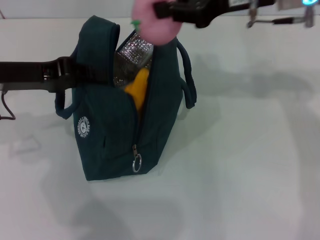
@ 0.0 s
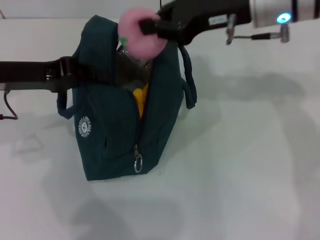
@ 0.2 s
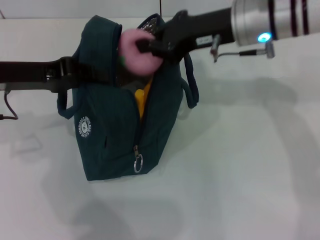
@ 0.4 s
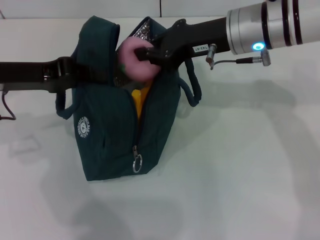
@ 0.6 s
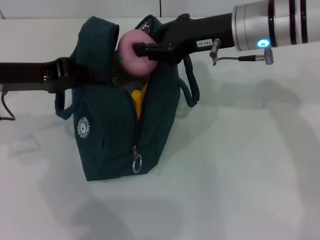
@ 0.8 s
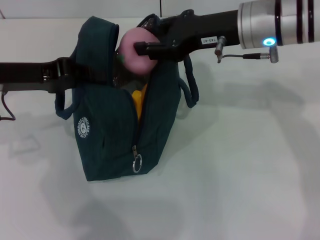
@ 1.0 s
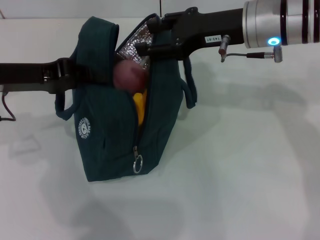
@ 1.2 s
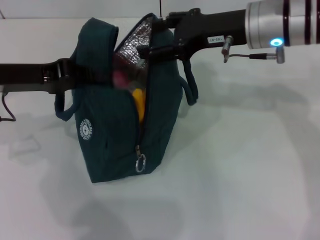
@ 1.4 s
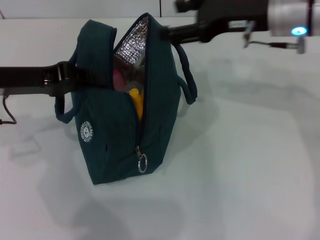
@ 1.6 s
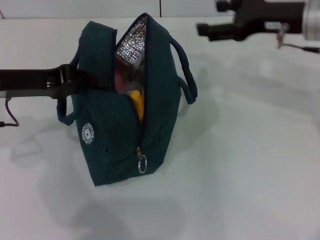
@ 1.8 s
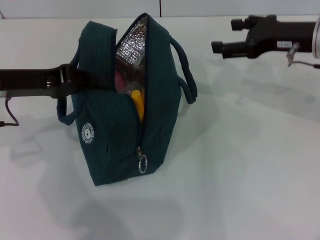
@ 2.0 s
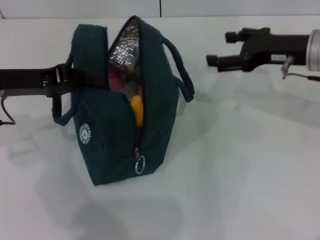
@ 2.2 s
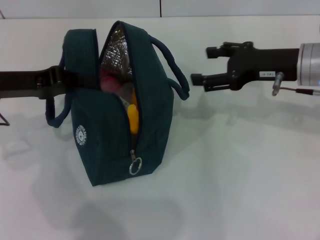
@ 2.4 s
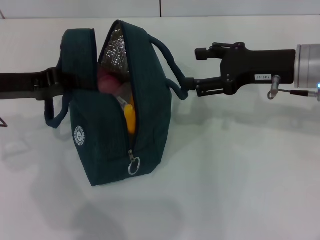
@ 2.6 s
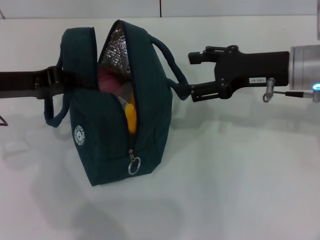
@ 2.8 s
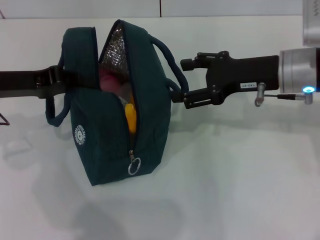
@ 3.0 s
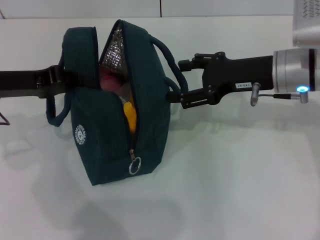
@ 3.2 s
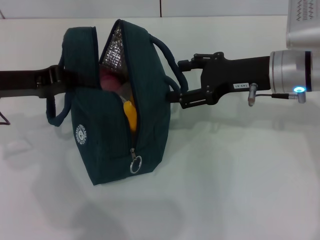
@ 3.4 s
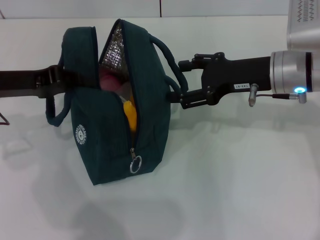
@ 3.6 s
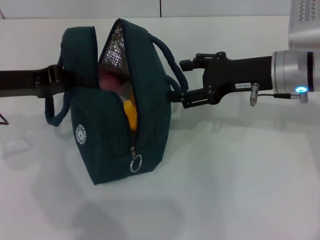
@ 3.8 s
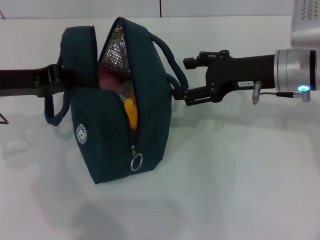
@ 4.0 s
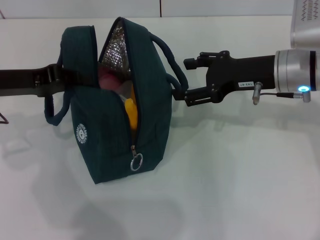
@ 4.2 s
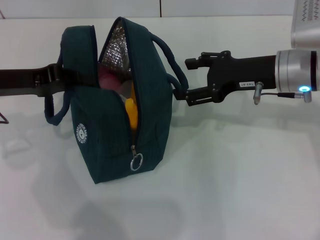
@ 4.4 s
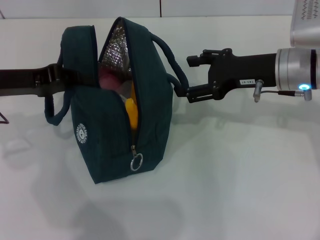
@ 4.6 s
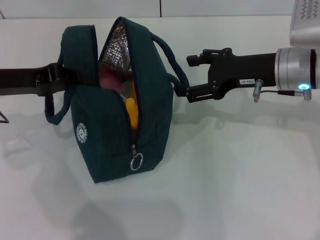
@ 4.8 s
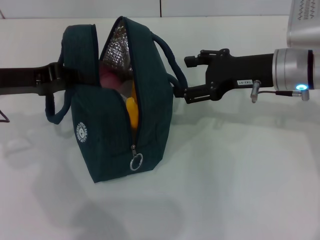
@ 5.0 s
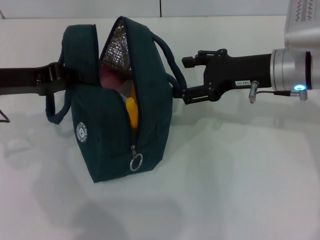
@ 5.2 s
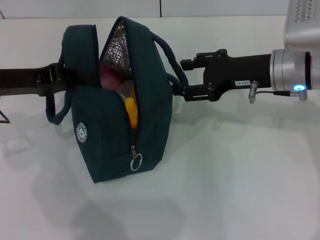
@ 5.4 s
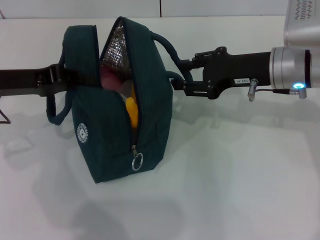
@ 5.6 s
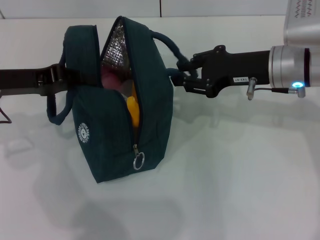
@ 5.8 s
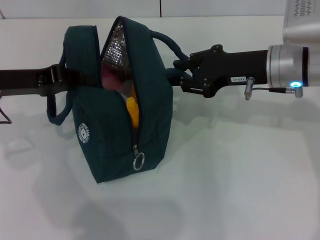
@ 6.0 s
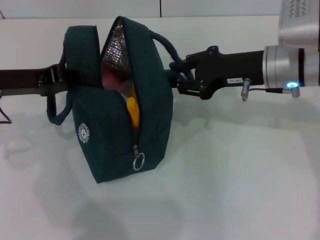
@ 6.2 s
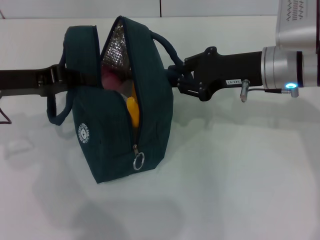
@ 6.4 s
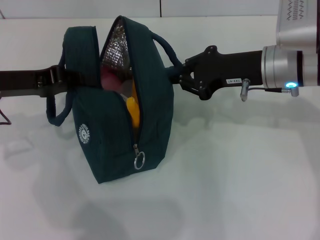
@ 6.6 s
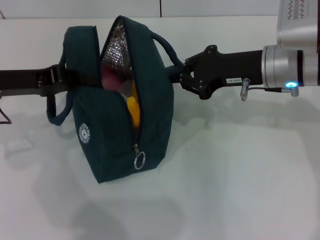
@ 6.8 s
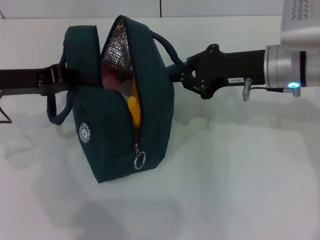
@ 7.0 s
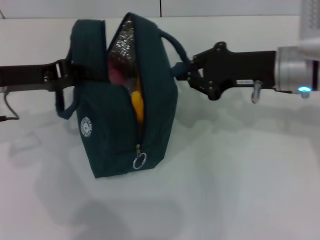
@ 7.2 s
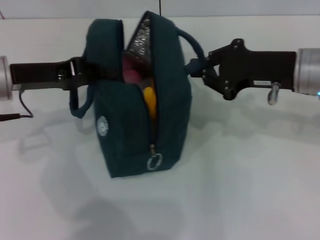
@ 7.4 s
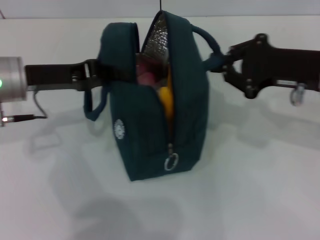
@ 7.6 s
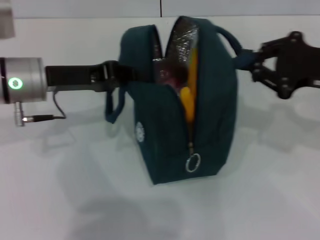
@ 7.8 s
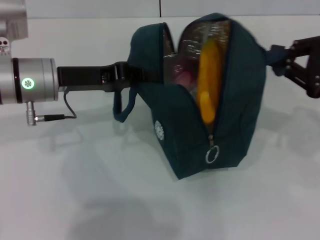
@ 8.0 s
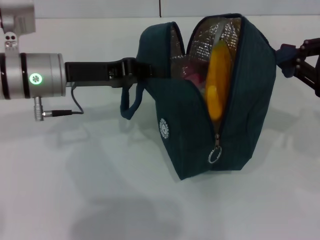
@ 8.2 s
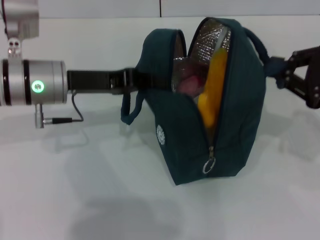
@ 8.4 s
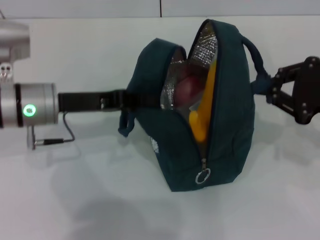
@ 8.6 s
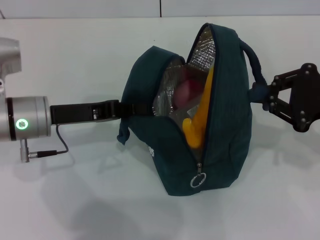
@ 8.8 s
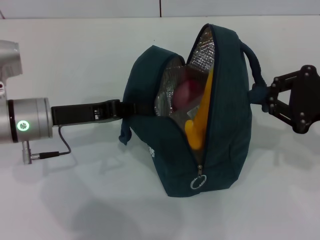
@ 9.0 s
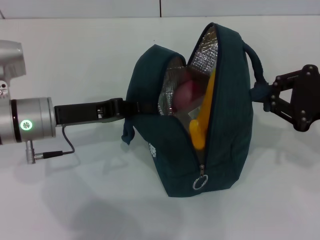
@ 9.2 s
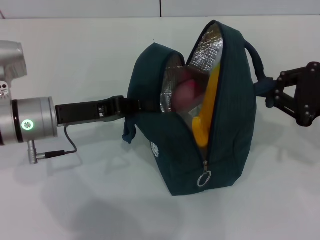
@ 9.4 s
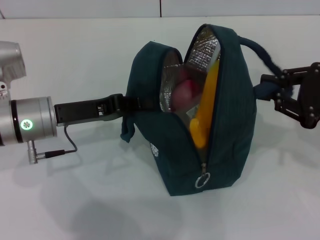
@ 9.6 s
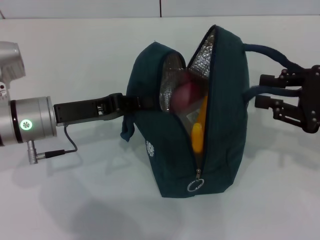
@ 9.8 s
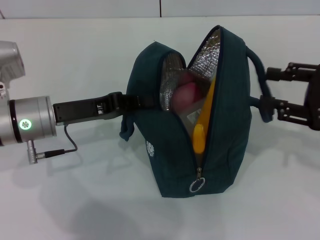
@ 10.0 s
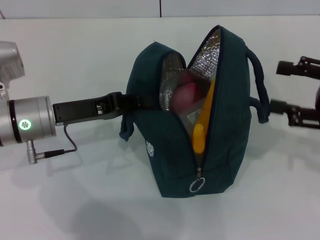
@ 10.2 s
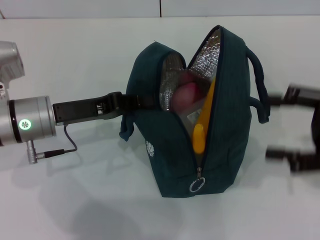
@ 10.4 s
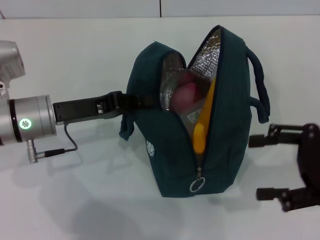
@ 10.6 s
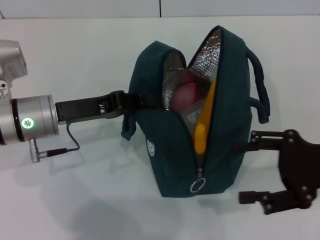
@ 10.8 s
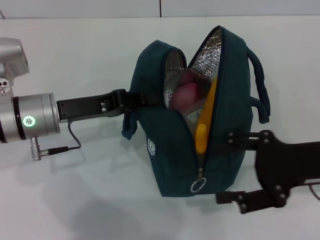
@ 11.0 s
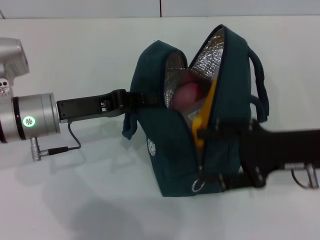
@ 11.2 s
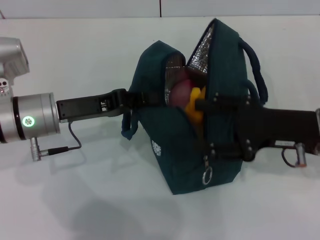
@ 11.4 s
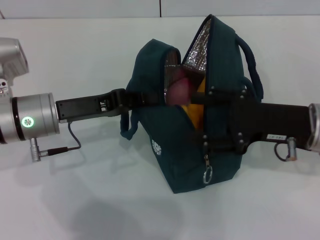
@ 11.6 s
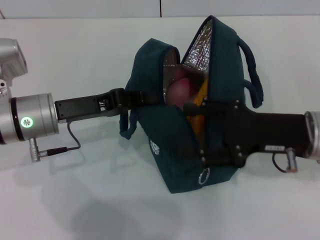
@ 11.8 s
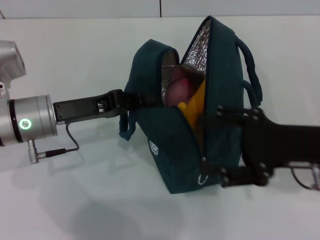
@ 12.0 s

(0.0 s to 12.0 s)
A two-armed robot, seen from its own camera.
Step, 1.4 s - 10.2 s: Hold the lunch bag with your right hand.
0.0 s - 1.6 s: The right gripper opens up.
1.6 s - 3.0 s: The right gripper heads downward, covering some 5 cm.
3.0 s - 4.4 s: Neither gripper changes place.
4.4 s - 6.0 s: The right gripper closes its fingers.
6.0 s - 7.6 s: The right gripper shifts some 5 cm to the right.
7.6 s - 9.0 s: The left gripper is displaced downward by some 5 cm. The right gripper moves to the right, about 5 cm.
9.0 s - 10.4 s: The right gripper opens up.
10.4 s - 12.0 s: The right gripper goes some 5 cm to the left.

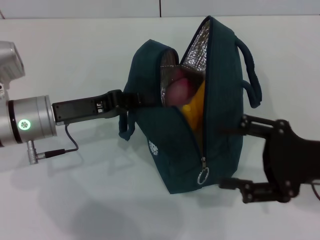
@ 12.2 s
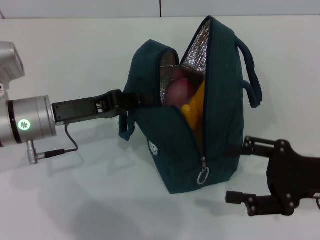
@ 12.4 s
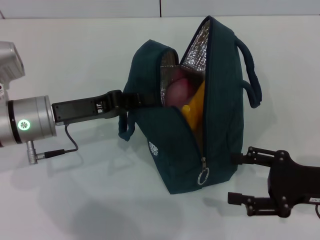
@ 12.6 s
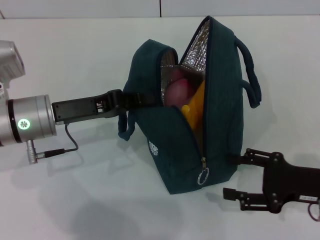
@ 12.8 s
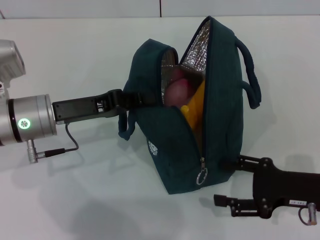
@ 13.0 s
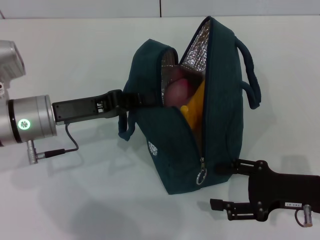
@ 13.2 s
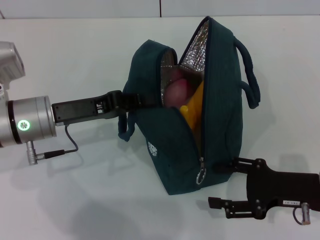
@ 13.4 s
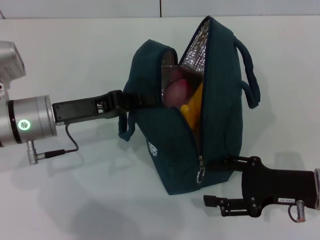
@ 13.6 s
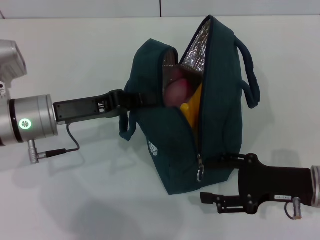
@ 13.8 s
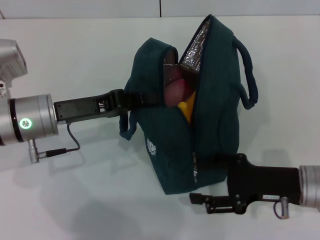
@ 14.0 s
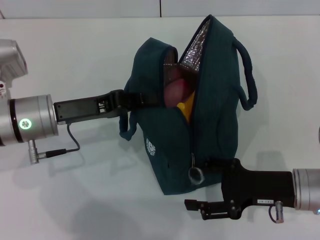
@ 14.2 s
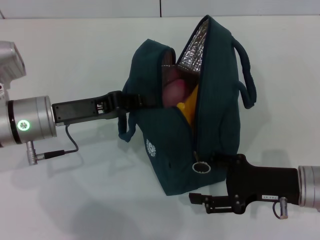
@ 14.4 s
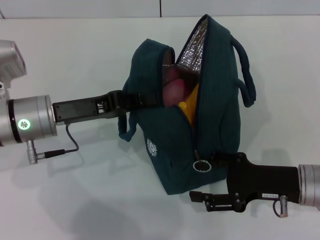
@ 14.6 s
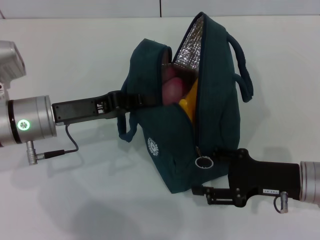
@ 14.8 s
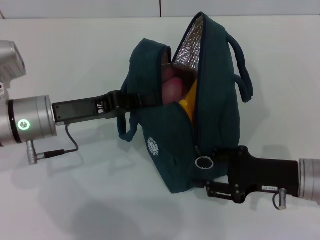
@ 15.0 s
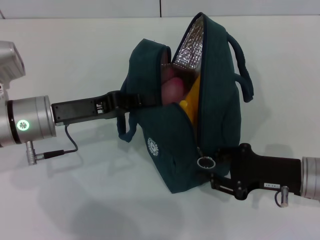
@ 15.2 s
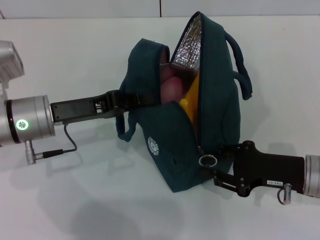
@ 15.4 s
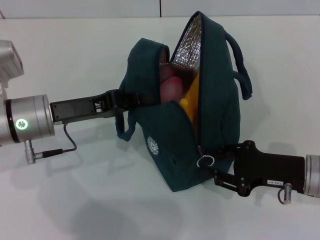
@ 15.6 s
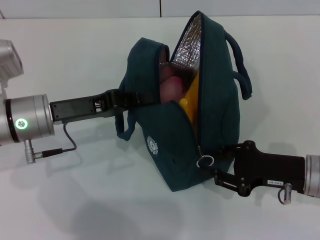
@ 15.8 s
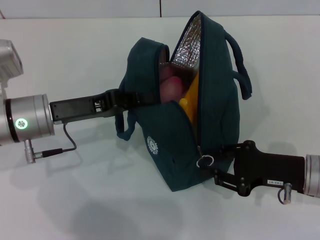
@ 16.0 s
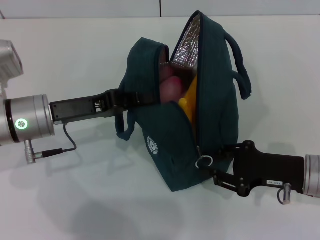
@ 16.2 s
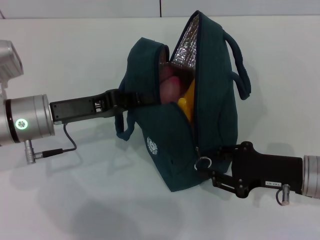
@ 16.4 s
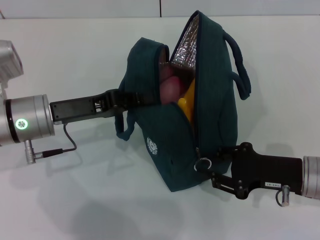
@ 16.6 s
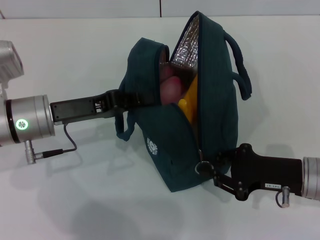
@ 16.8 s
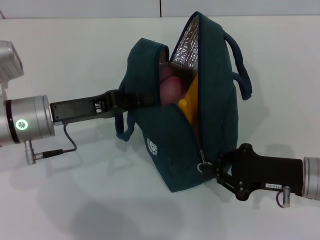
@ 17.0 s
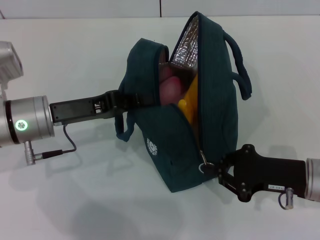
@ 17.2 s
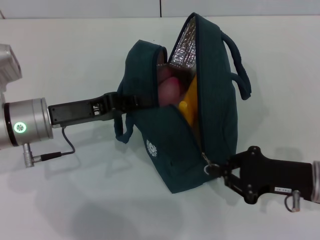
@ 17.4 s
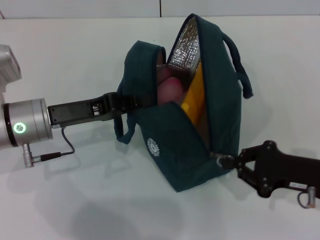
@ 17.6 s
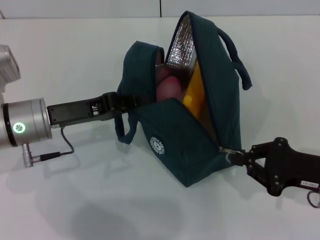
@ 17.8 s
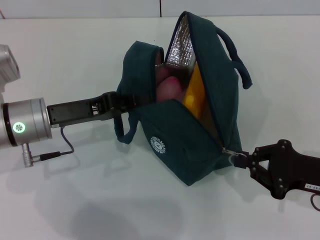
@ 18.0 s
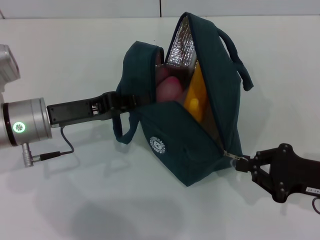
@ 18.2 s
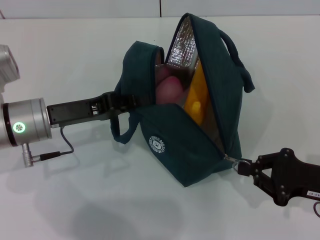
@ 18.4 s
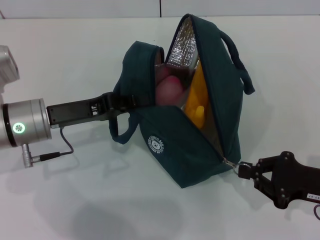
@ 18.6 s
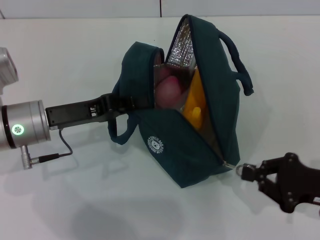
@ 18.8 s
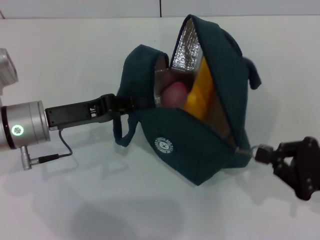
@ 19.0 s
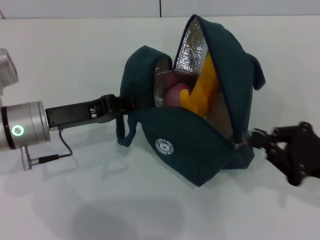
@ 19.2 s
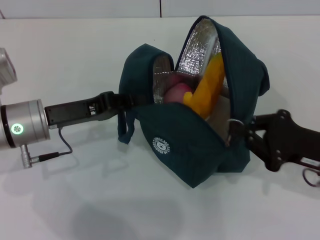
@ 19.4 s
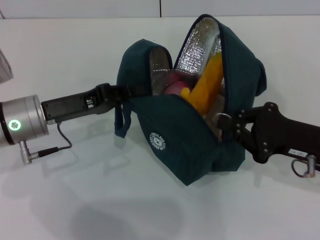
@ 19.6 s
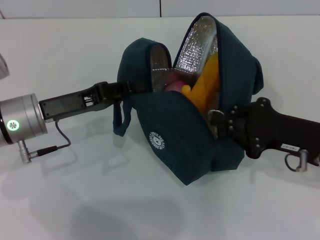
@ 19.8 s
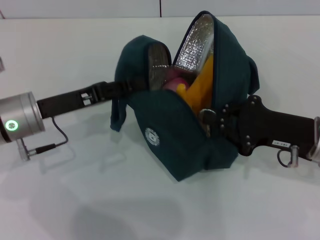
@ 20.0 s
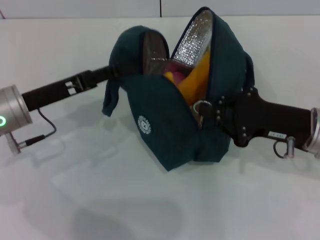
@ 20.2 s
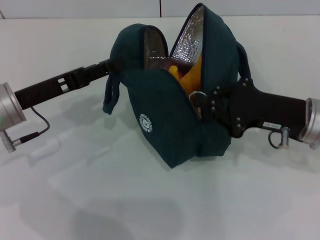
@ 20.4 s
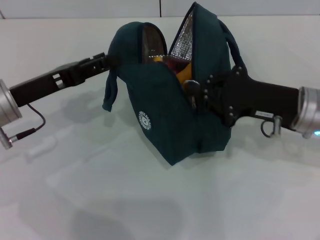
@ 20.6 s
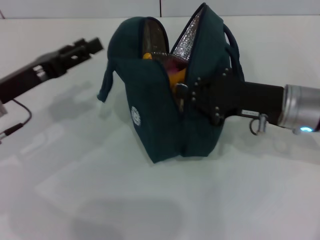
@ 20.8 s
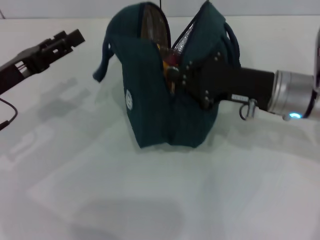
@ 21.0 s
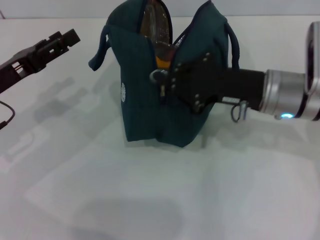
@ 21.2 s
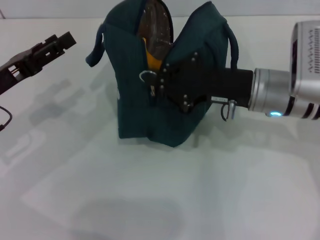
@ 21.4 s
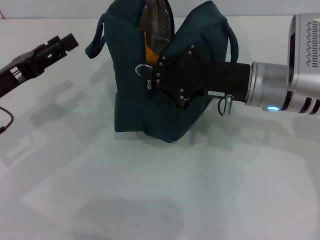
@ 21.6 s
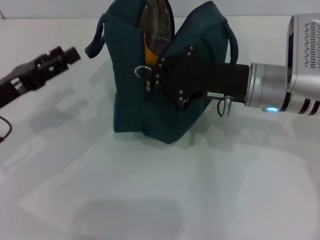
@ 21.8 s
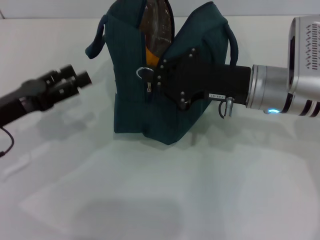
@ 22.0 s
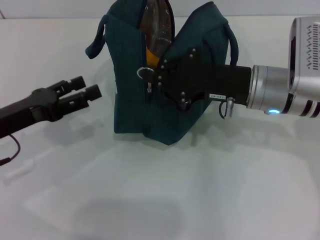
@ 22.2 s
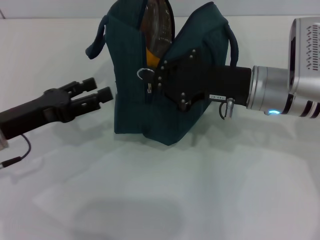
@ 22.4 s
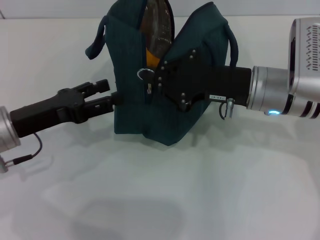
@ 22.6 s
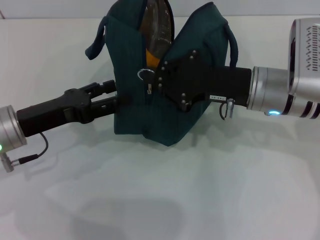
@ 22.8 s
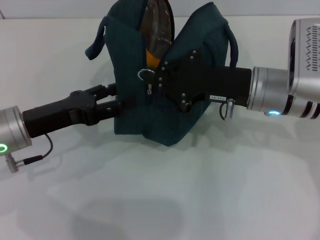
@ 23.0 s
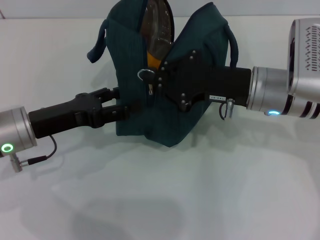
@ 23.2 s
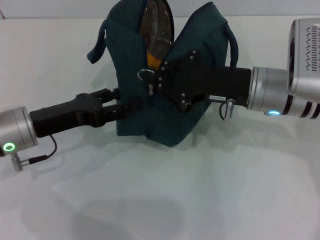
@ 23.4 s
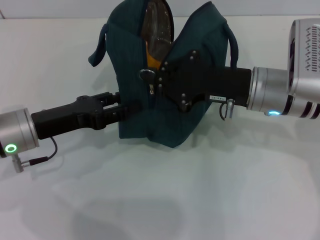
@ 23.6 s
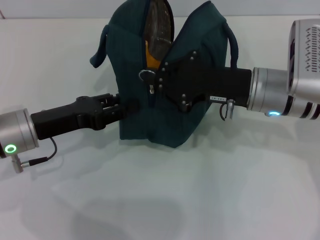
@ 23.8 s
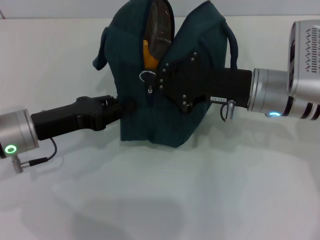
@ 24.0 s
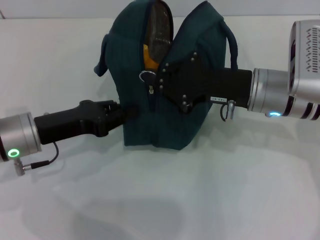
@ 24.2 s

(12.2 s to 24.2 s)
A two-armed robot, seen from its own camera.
Step, 12.2 s - 20.6 s: Hold the lunch bag with your left hand.
12.2 s - 13.8 s: The right gripper goes roughly 5 cm downward.
13.8 s - 15.2 s: There are only small adjustments of the grippers.
15.2 s - 16.6 s: Both grippers stay about where they are.
16.6 s - 18.2 s: The right gripper changes place by about 5 cm, and closes.
18.2 s - 19.8 s: The right gripper shifts by some 5 cm.
19.8 s - 21.2 s: The right gripper goes approximately 10 cm to the left and forward; the left gripper heads to the left, covering approximately 5 cm, and opens.
21.2 s - 22.6 s: The grippers stay close to where they were, moving slightly.
22.6 s - 24.2 s: The left gripper closes.
